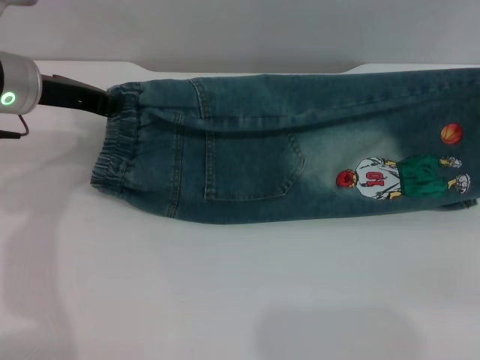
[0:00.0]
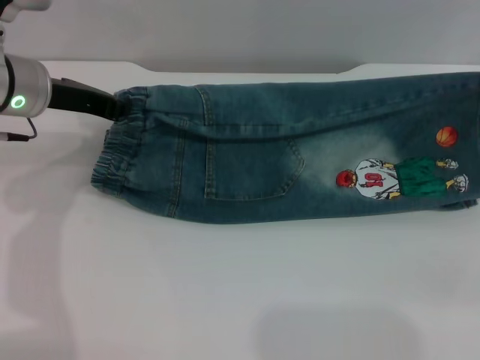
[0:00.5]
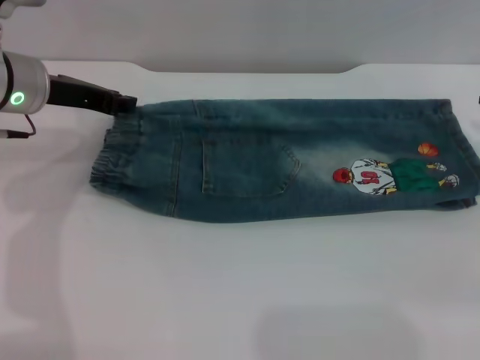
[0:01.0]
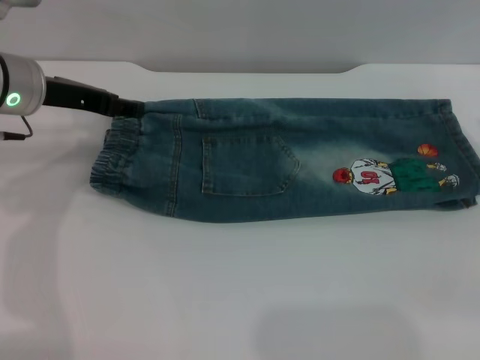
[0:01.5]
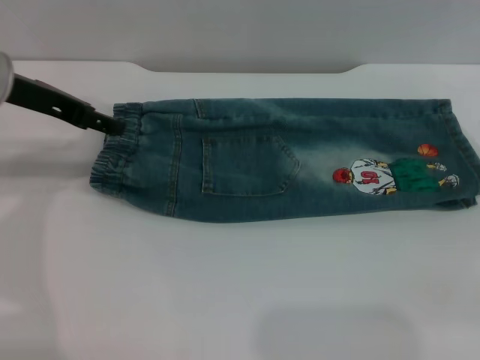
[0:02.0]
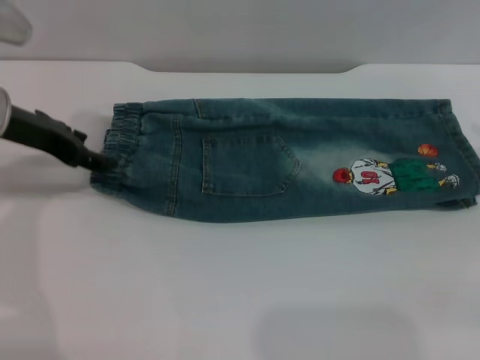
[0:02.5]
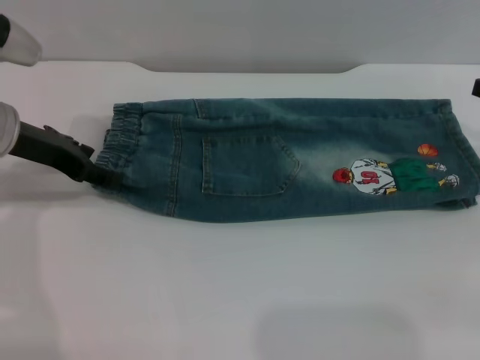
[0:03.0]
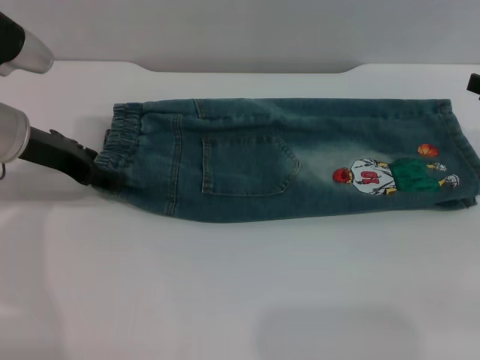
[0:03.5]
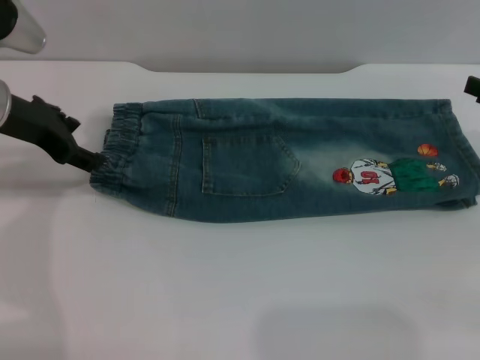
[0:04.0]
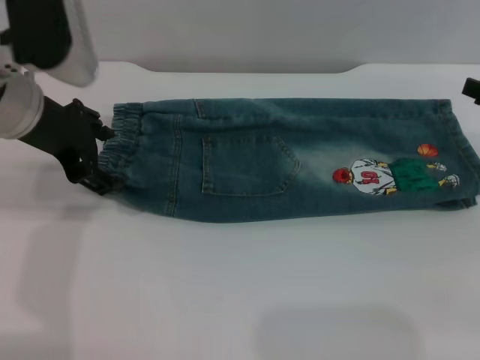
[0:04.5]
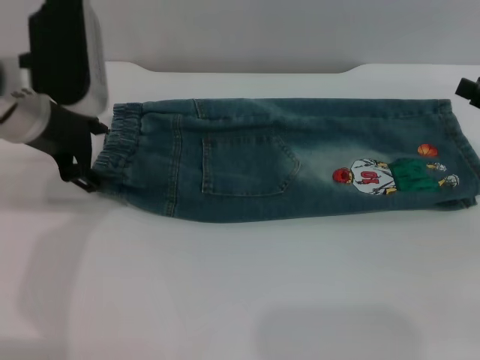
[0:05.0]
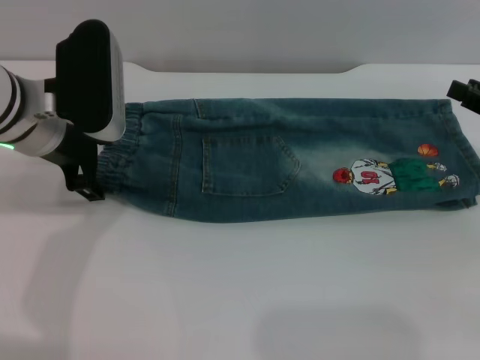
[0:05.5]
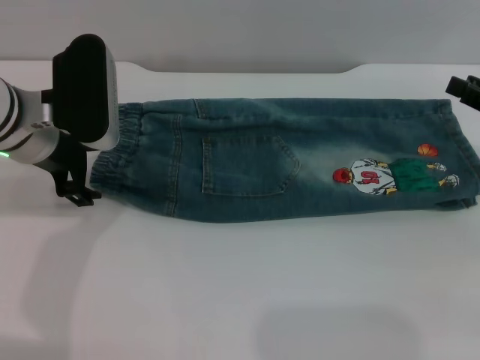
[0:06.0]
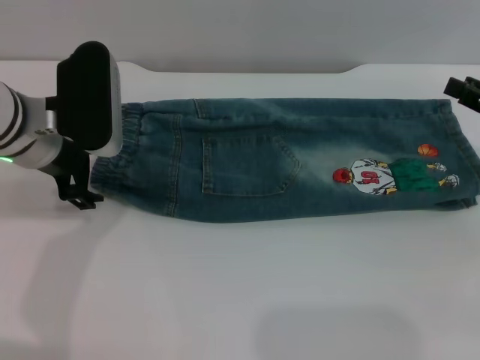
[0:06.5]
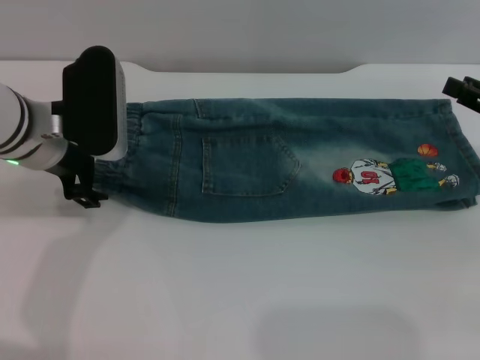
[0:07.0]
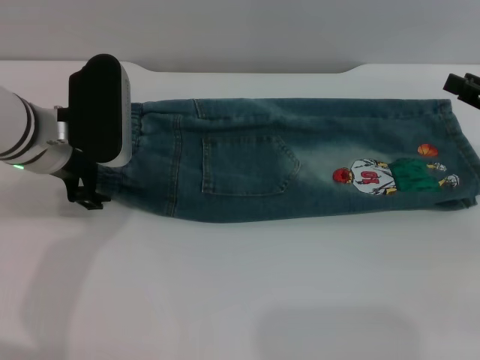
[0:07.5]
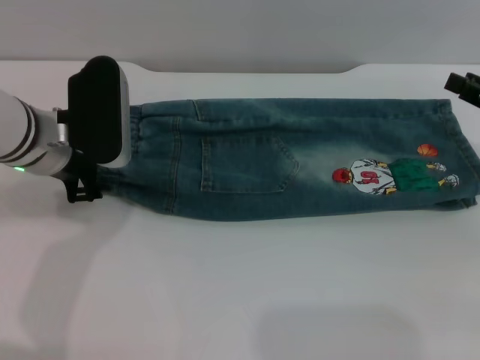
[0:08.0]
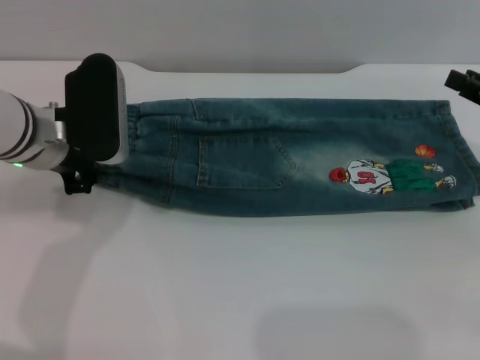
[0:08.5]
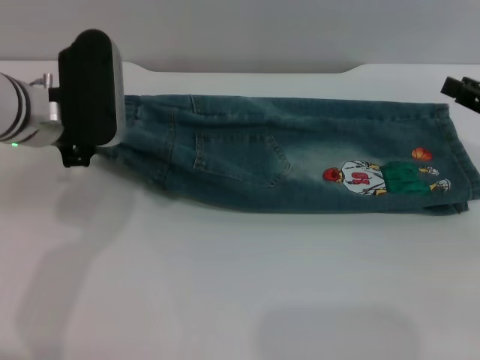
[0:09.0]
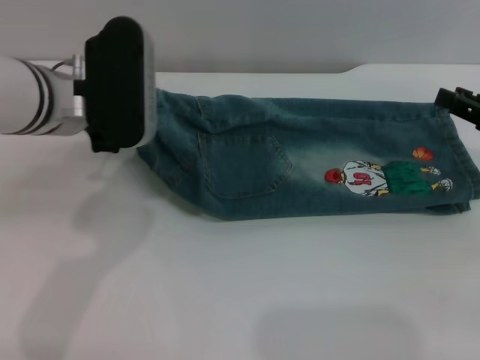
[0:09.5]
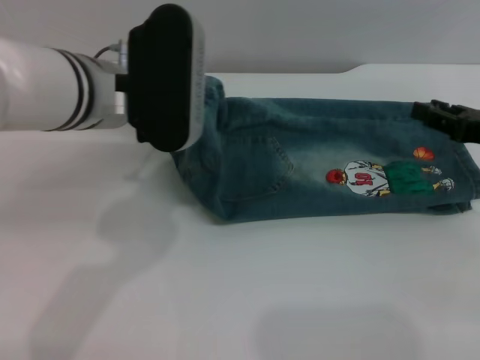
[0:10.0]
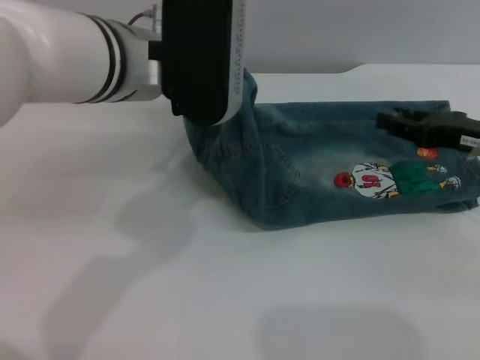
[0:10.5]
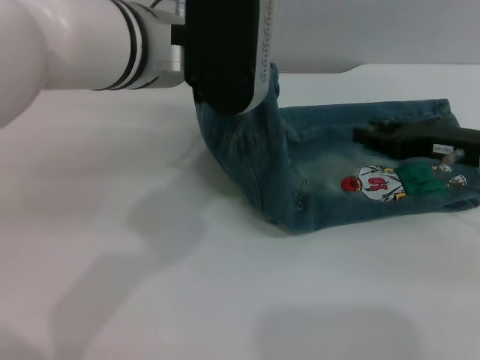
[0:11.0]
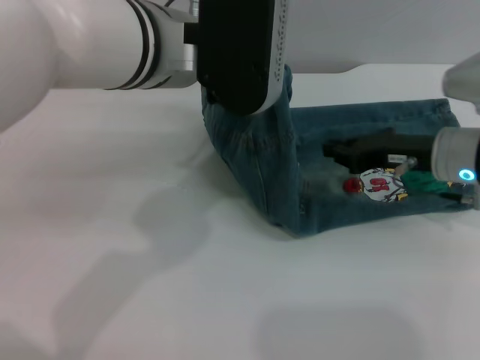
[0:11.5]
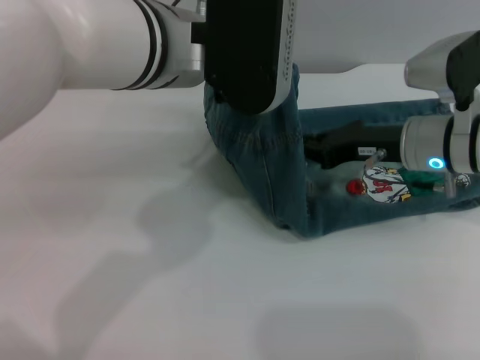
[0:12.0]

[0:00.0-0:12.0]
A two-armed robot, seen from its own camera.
Step, 0:00.0 to 0:02.0: Fold the bottom of the pants upward with both grippers.
0:00.0 to 0:02.0: The left gripper opens up, while the right gripper opens.
0:04.0 to 0:06.0: The left gripper moves to the right, some 5 cm.
0:06.0 to 0:08.0: The grippers stay close to where they were, moving slightly.
0:08.0 to 0:10.0: The left gripper shifts about 10 cm to the right and upward, and closes up.
0:10.0 to 0:12.0: The left gripper moves to the right, approximately 5 cm. Meanwhile the right gripper travels to the left by about 10 cm, and closes its fingers.

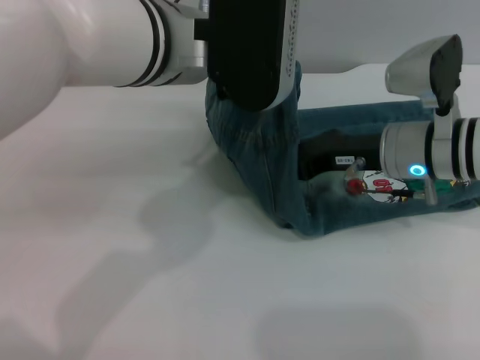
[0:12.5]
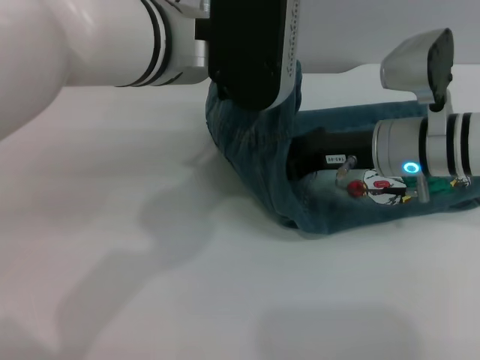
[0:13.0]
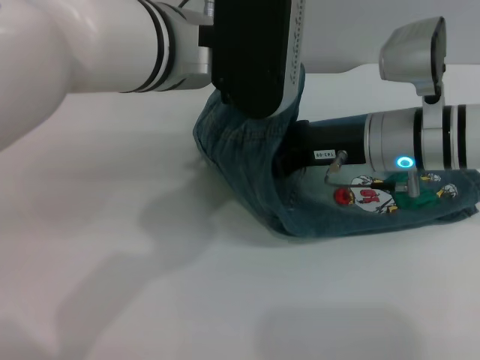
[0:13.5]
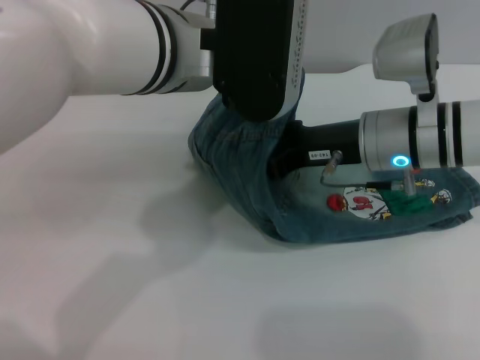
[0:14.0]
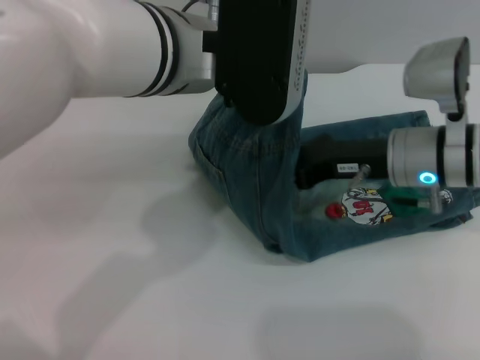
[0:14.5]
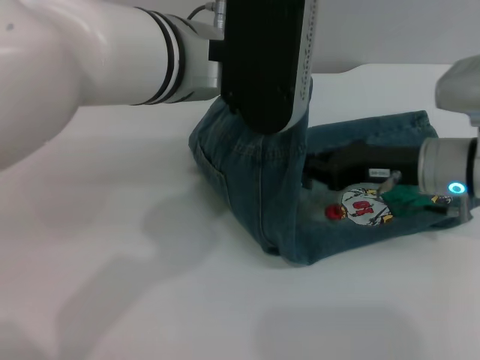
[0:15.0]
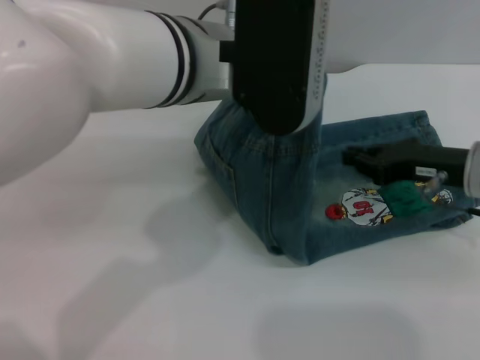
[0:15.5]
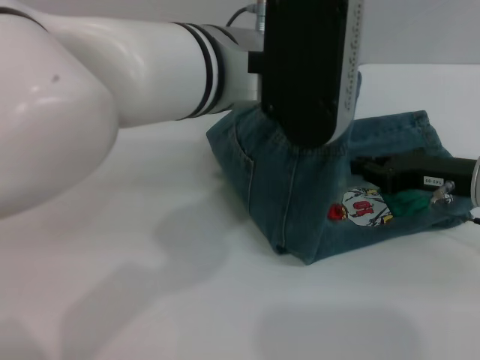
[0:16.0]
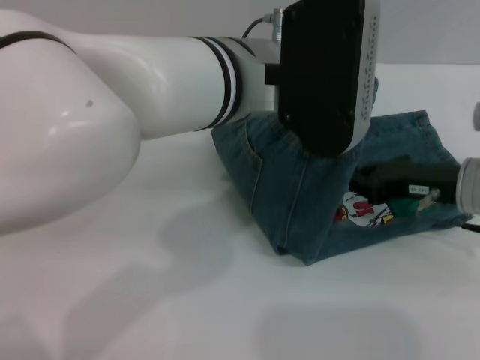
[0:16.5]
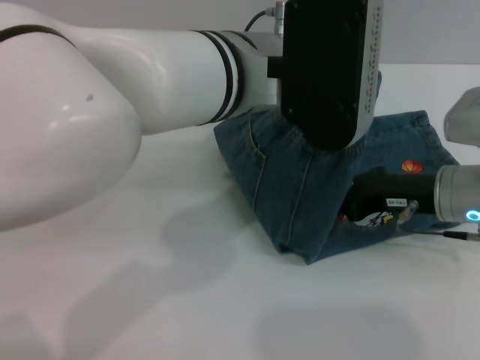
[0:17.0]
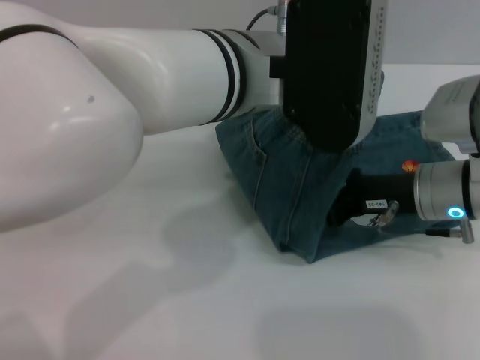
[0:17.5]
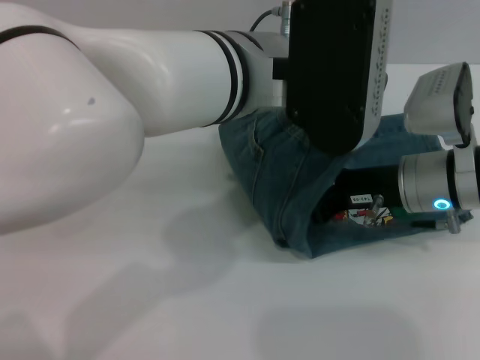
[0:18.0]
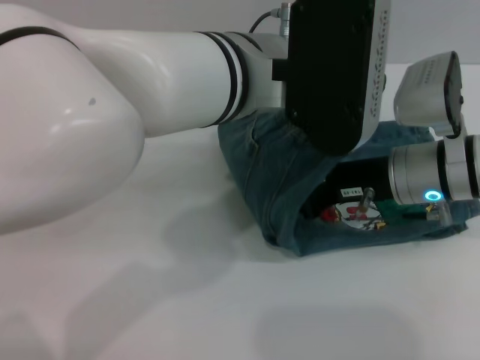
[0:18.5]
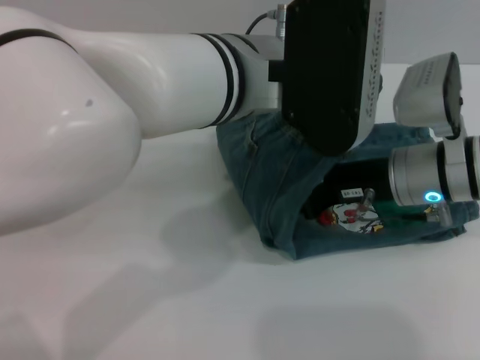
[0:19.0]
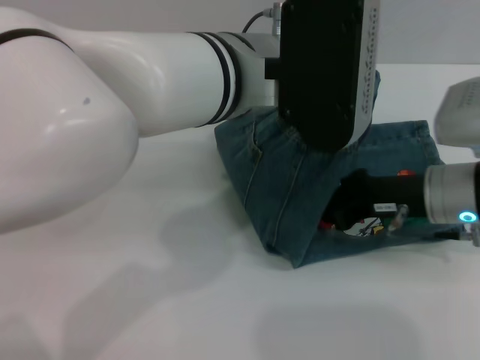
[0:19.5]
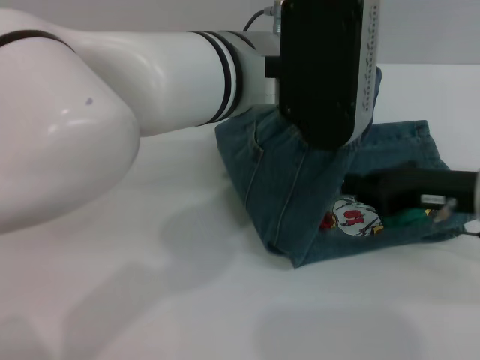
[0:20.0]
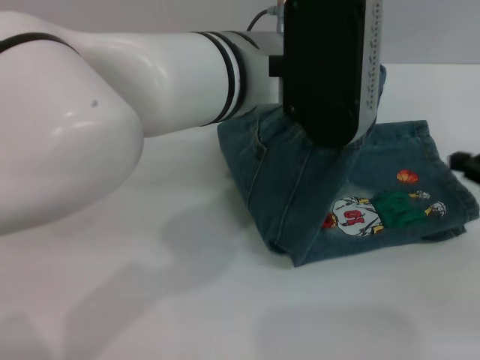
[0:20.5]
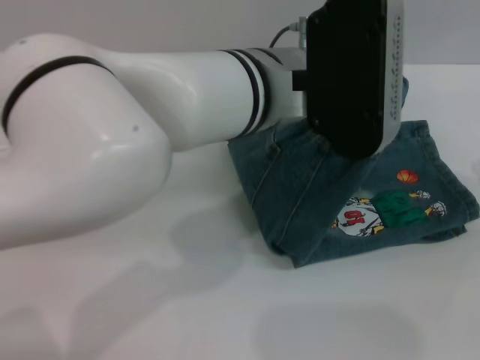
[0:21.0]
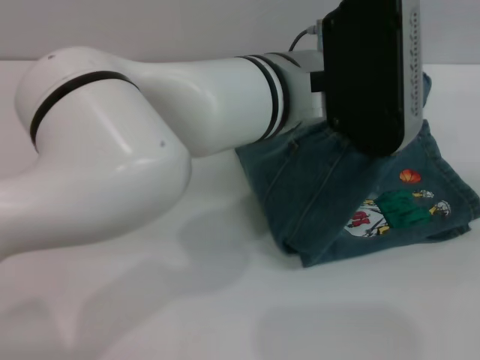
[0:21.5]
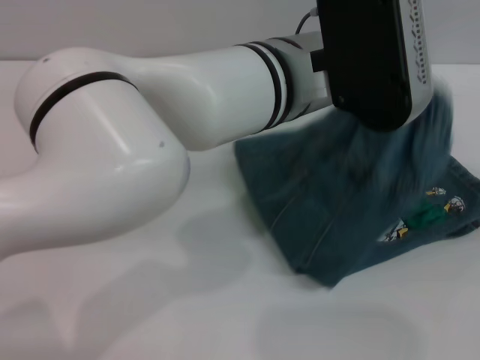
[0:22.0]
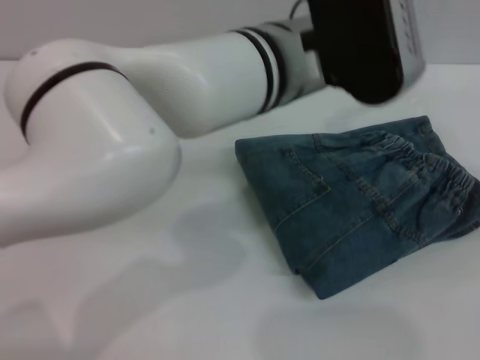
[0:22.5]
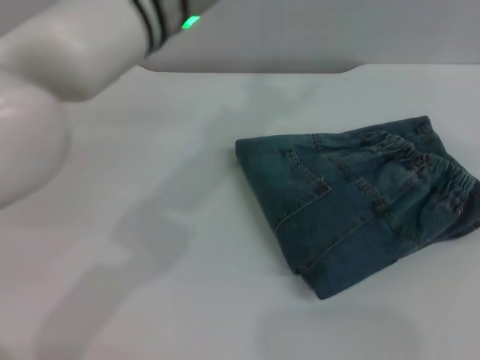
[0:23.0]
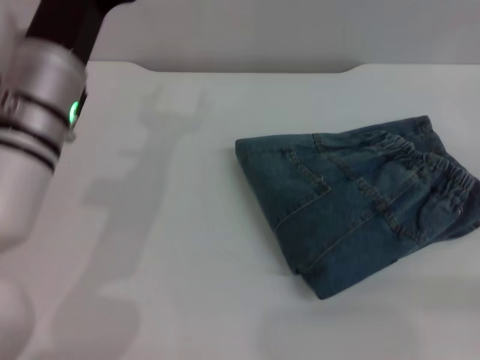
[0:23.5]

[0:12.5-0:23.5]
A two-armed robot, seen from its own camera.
Step, 0:12.5 to 0:22.0: Fold the pants from left to right with the left gripper.
0:12.5 to 0:14.5: The grippers move only a little.
0:14.5 to 0:16.0: The right gripper moves to the right, roughly 10 cm.
0:16.0 to 0:18.0: The right gripper travels to the left by about 10 cm.
0:18.0 to 0:20.0: The right gripper is displaced to the right by some 5 cm.
0:20.0 to 0:21.5: The right gripper is displaced to the right by approximately 15 cm.
0:21.5 to 0:23.5: The right gripper ends up some 5 cm from where it was. The left gripper is displaced to the left by some 15 cm, and opens.

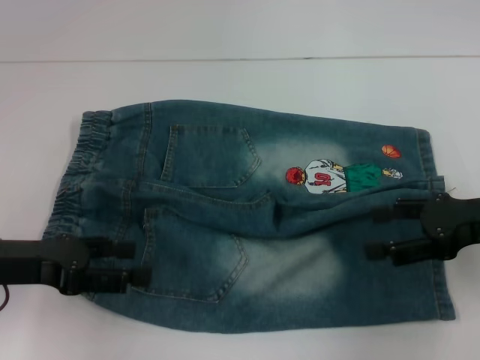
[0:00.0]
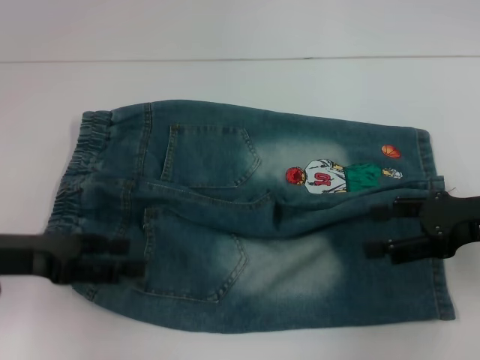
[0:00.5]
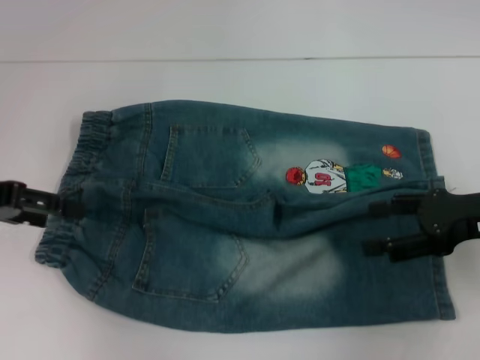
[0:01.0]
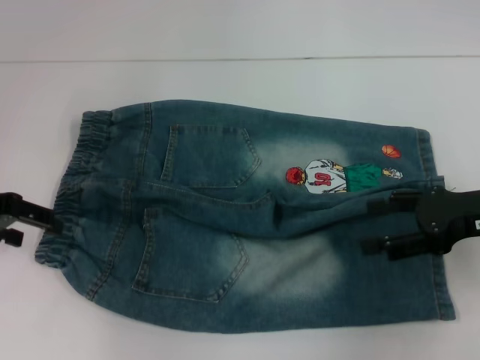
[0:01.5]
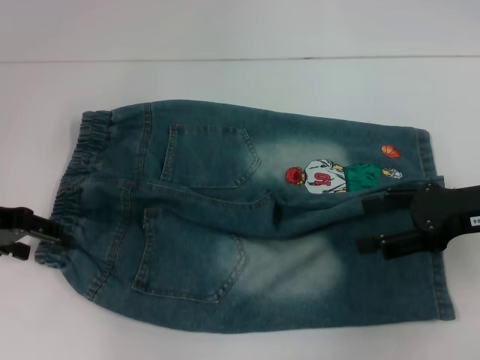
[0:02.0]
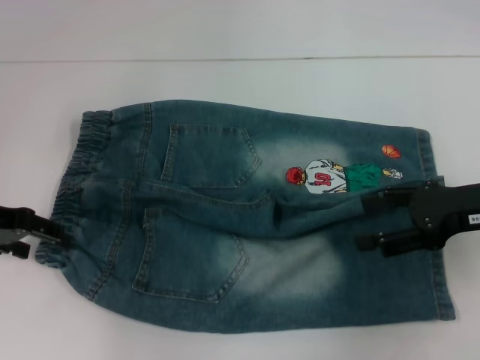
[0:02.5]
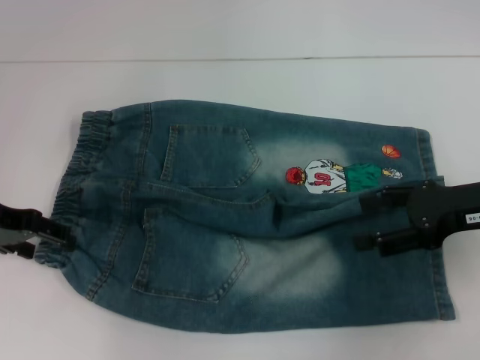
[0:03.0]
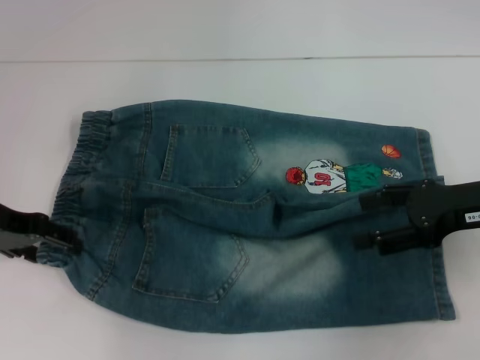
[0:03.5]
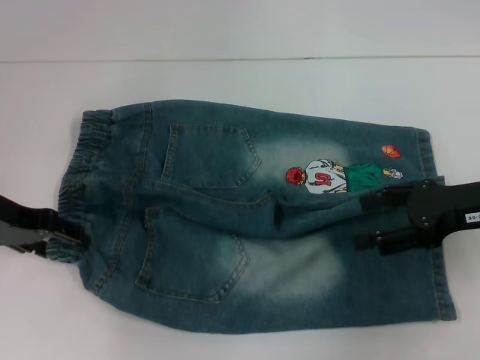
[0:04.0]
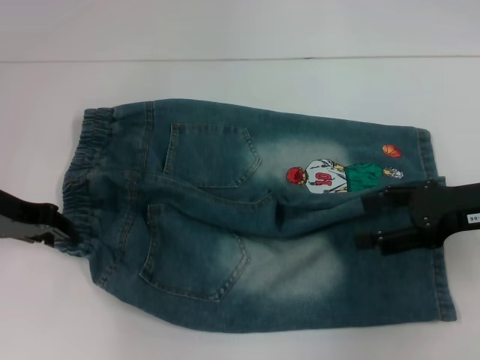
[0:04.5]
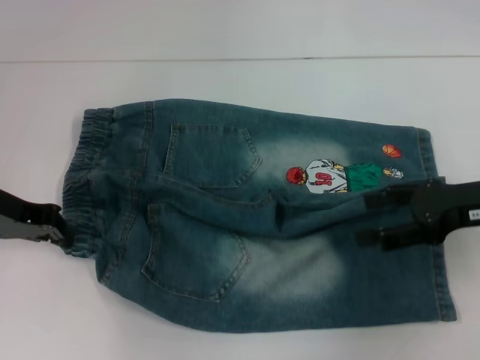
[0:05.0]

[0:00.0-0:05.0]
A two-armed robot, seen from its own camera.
Step, 0:00.0 to 0:04.0: Hold the lower left waistband with your left hand.
0:00.0 to 0:02.5: The left gripper shifts approximately 10 cm forward.
0:02.5 to 0:05.0: The left gripper closes.
